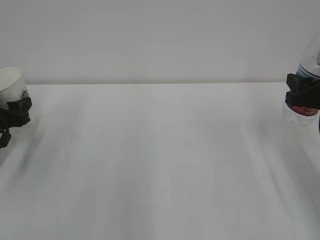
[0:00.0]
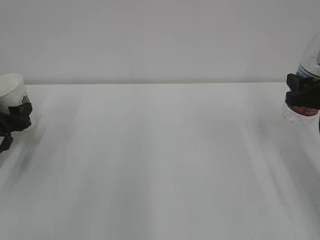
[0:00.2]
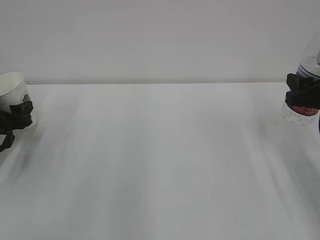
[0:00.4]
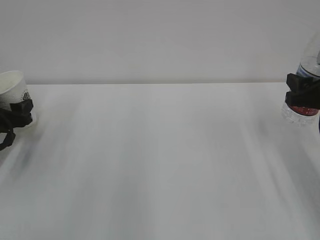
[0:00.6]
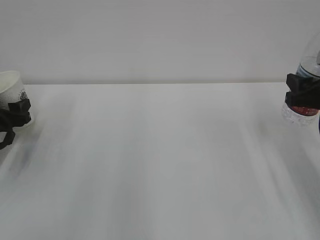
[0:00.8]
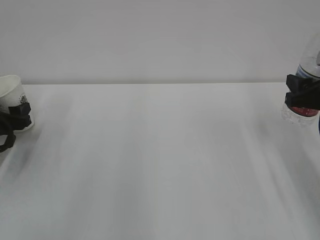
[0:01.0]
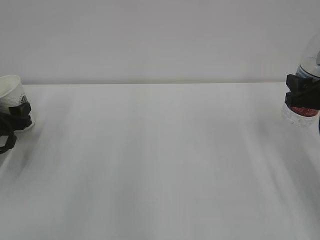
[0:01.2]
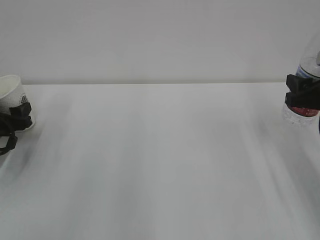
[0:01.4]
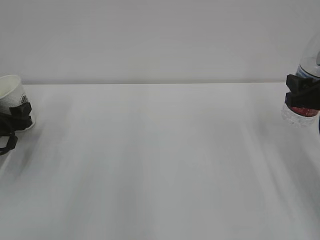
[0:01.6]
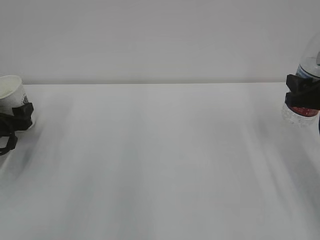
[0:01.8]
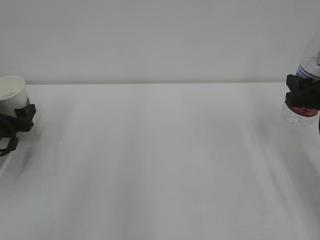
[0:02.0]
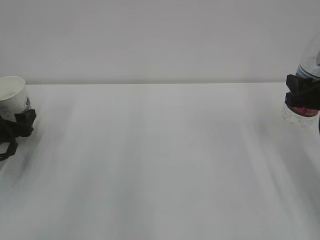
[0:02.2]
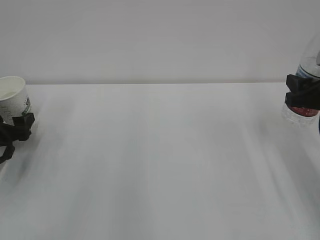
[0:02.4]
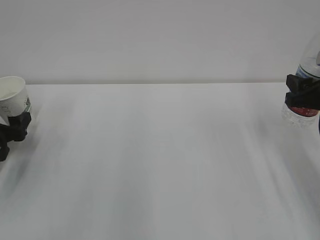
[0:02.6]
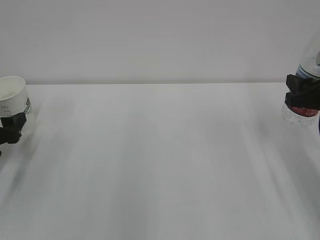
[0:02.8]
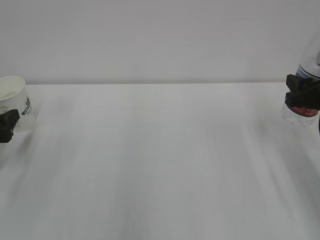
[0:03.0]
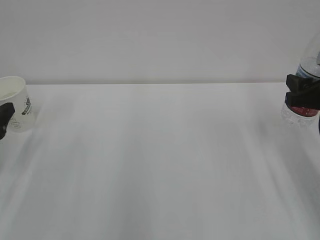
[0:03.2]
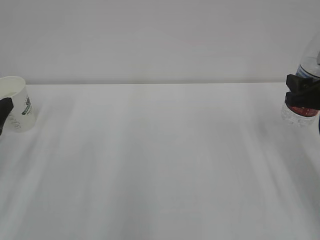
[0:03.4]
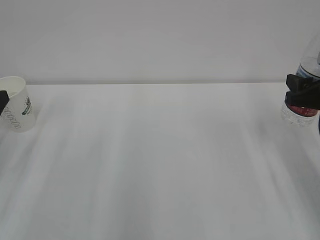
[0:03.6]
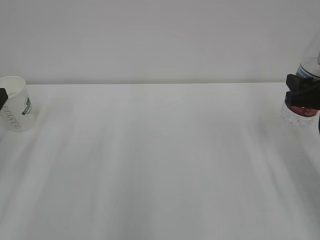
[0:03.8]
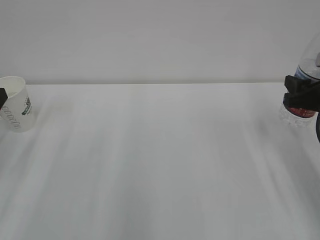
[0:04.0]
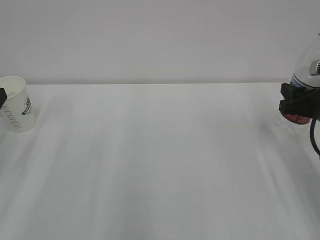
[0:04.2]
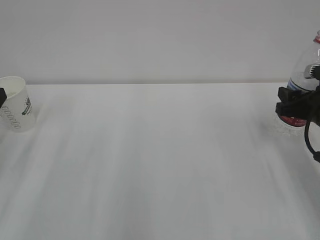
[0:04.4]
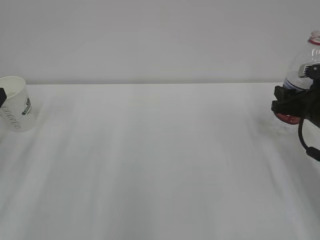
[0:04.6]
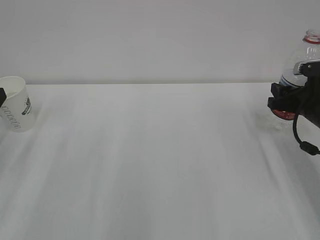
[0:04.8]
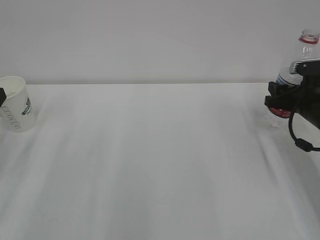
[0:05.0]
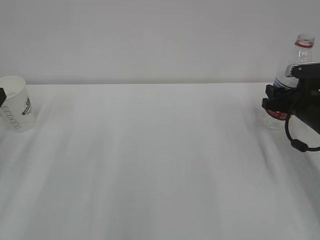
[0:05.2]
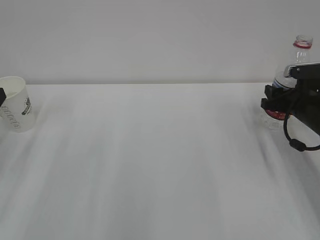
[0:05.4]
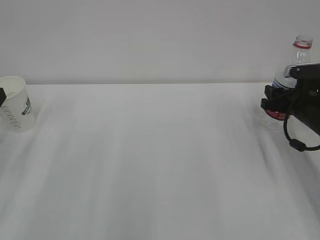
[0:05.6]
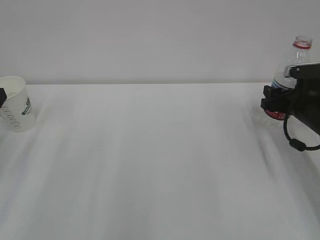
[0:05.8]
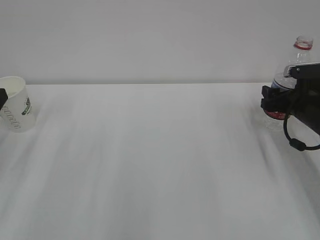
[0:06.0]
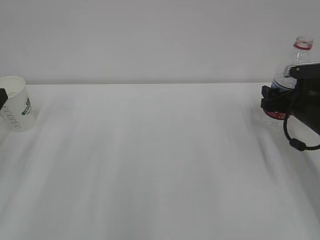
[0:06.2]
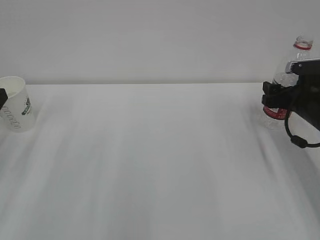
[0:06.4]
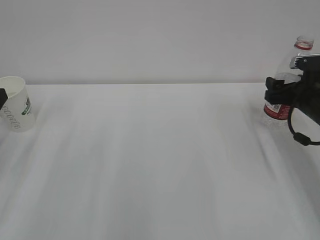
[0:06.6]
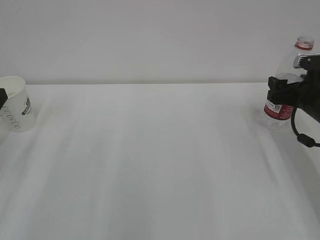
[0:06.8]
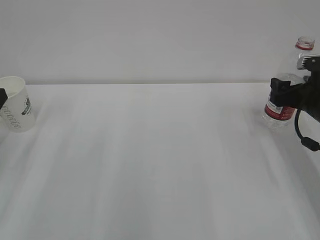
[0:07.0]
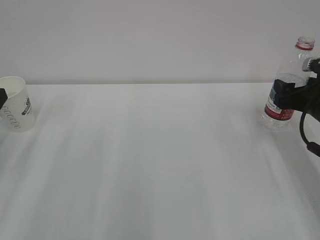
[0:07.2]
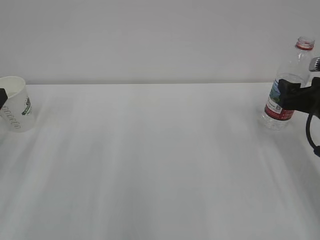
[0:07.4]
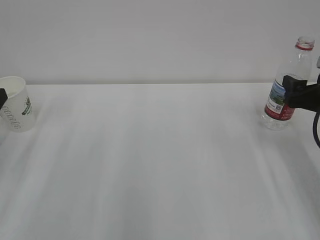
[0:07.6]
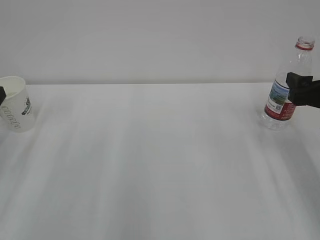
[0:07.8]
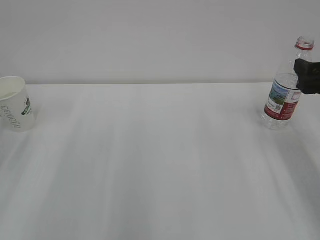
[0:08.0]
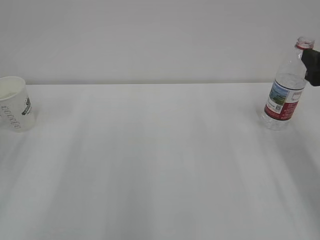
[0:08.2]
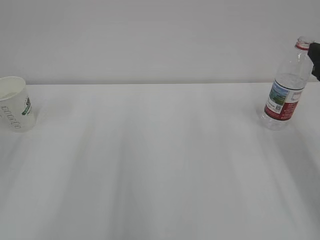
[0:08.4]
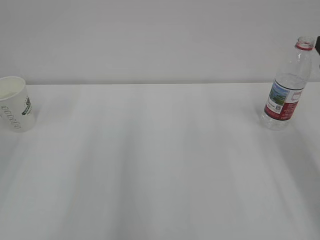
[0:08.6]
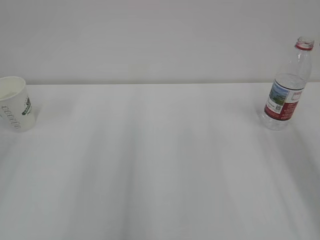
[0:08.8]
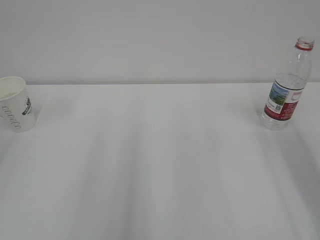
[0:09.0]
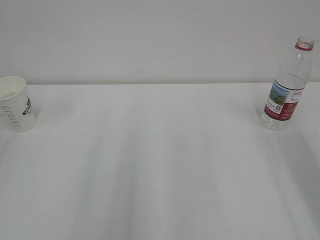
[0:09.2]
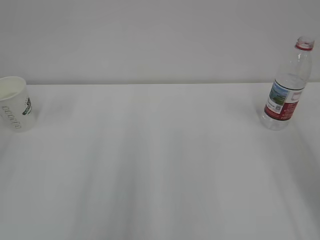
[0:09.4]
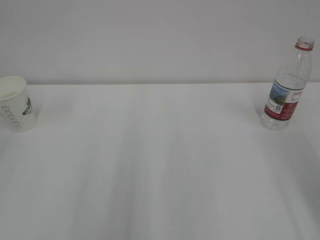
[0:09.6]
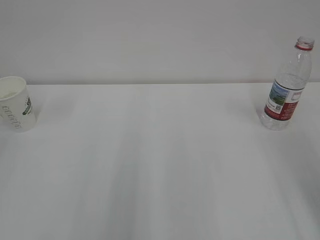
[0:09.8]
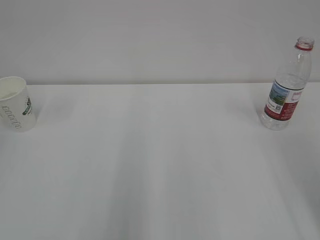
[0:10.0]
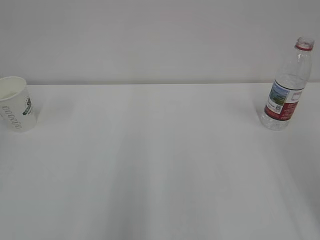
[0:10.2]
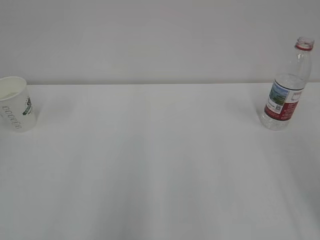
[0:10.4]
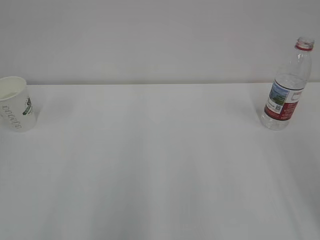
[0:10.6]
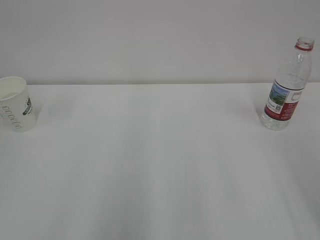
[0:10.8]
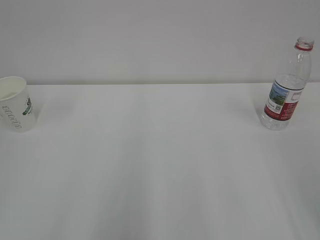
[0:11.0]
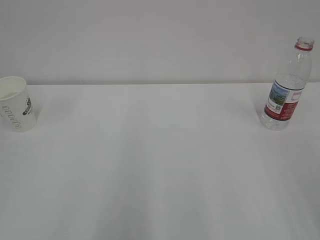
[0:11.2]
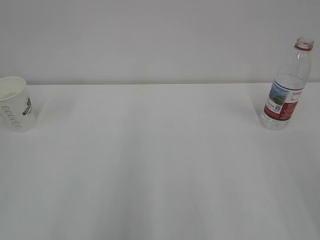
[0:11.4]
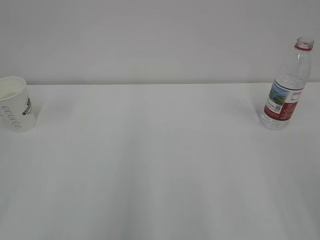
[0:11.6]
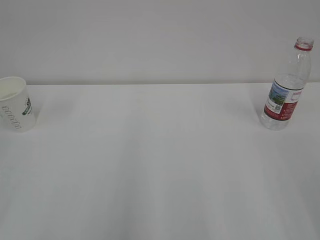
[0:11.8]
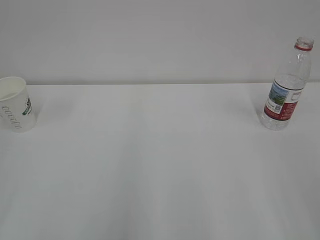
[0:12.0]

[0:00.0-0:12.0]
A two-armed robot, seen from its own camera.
0:00.0 to 0:01.6: The grippers stay close to where they were, moving slightly.
0:01.6 to 0:03.0: The left gripper goes about 10 cm backward, and opens up.
0:03.0 to 0:04.4: The left gripper moves upward, roughly 5 cm.
0:04.4 to 0:06.0: The right gripper heads forward, covering some 5 cm, and opens up.
0:06.0 to 0:07.6: The right gripper moves backward and upward, about 10 cm.
0:07.6 to 0:09.0: The right gripper is displaced upward and backward by approximately 15 cm.

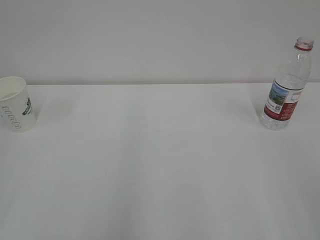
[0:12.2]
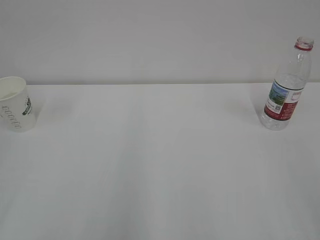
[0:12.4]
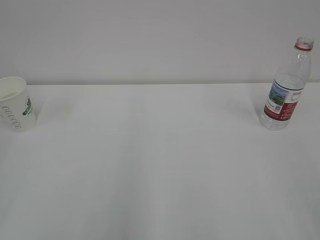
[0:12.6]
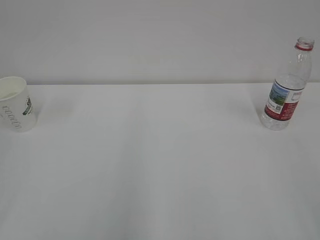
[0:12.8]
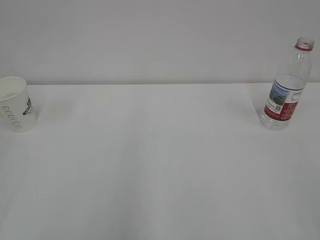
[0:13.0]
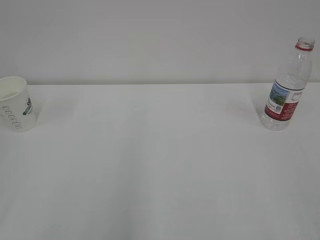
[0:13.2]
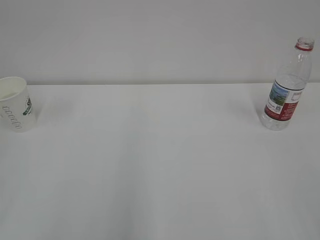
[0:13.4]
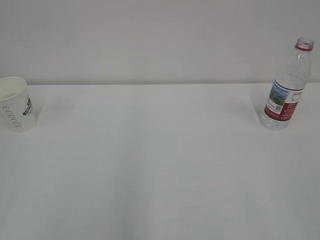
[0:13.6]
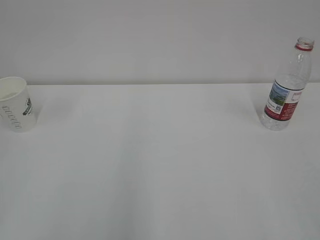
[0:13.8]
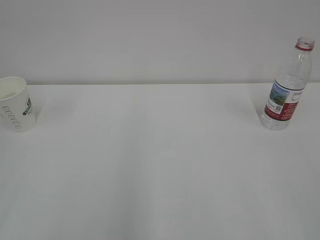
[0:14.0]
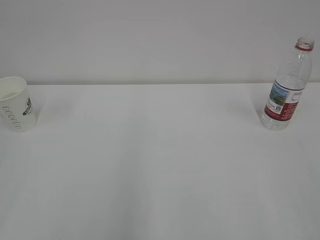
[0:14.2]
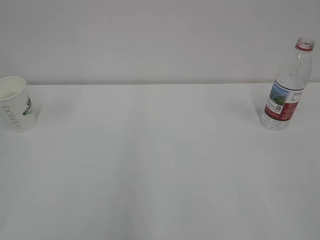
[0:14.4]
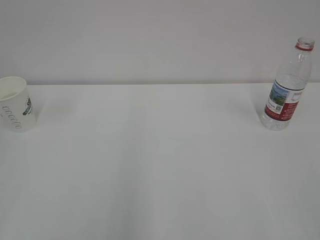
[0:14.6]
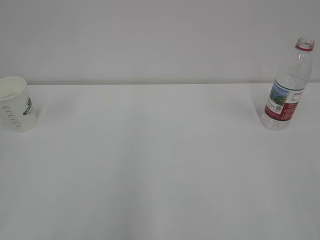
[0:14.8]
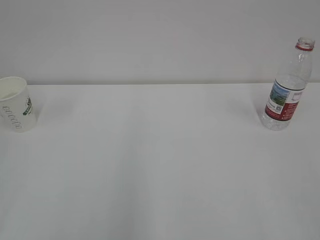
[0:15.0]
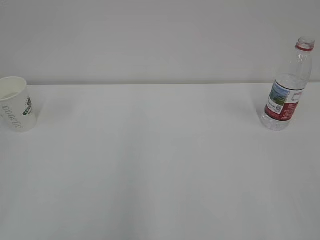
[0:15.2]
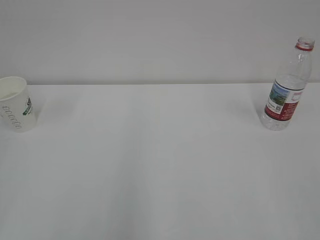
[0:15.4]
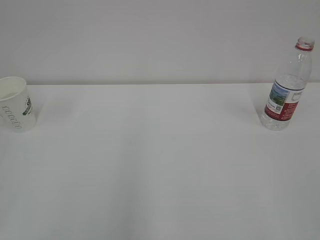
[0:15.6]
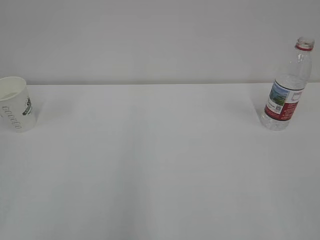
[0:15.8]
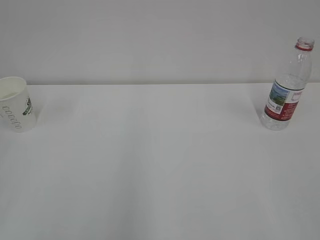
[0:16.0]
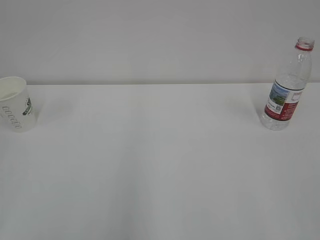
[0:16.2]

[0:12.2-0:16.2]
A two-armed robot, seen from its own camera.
0:13.6 to 0:16.2: Both grippers stay about where they are.

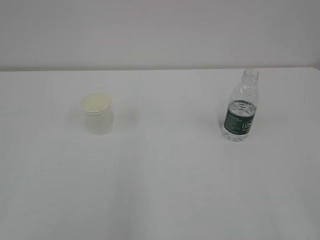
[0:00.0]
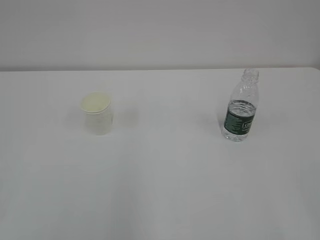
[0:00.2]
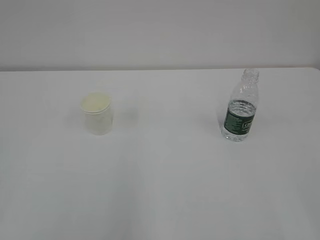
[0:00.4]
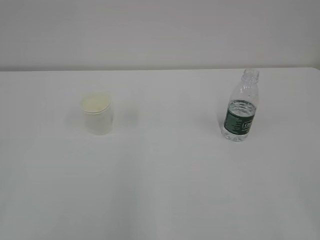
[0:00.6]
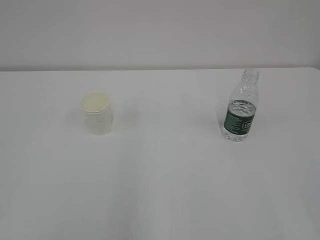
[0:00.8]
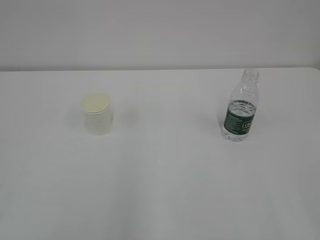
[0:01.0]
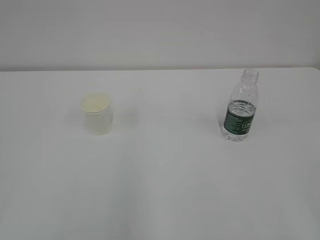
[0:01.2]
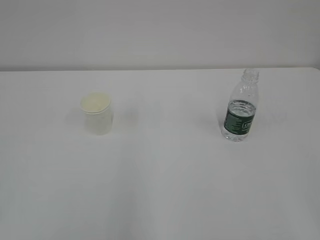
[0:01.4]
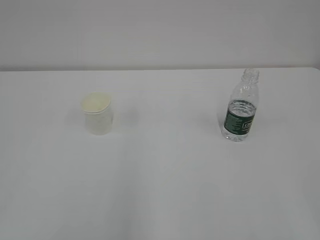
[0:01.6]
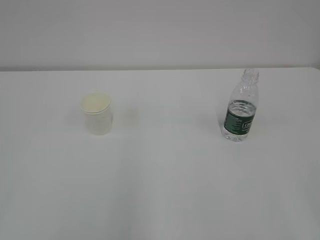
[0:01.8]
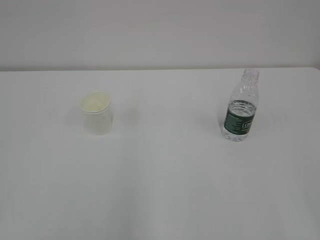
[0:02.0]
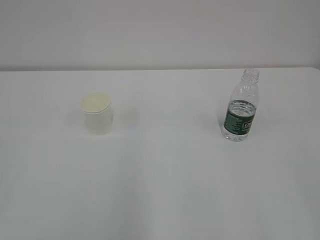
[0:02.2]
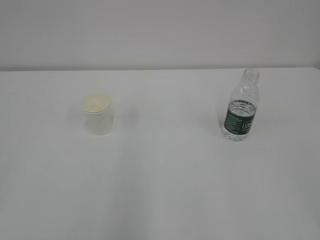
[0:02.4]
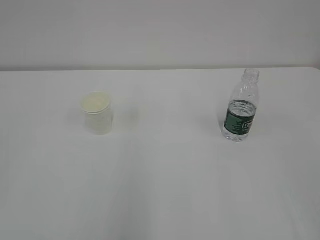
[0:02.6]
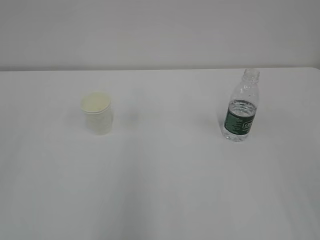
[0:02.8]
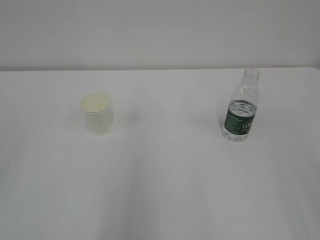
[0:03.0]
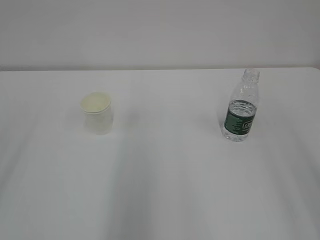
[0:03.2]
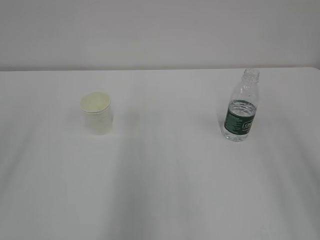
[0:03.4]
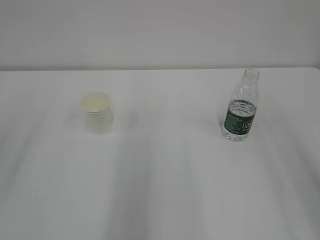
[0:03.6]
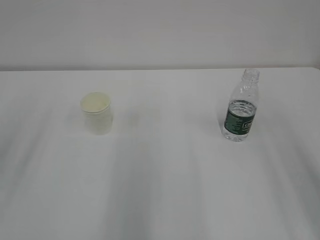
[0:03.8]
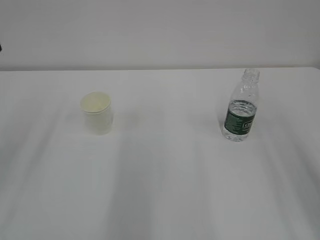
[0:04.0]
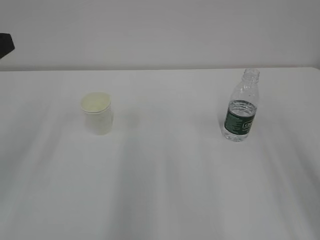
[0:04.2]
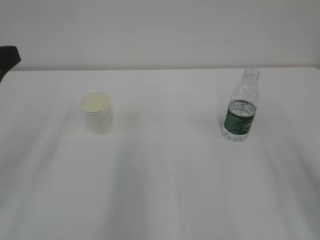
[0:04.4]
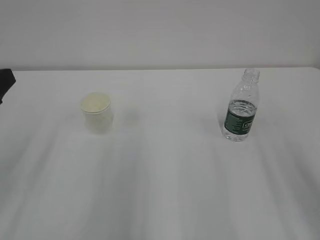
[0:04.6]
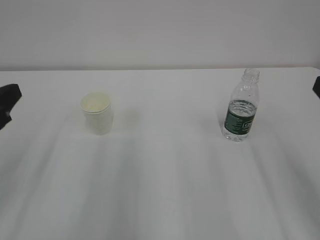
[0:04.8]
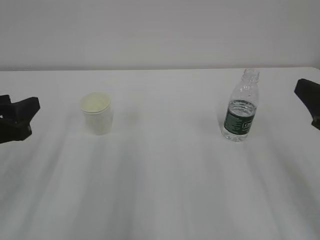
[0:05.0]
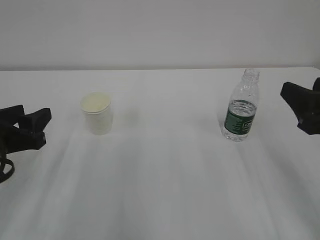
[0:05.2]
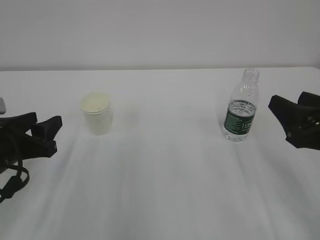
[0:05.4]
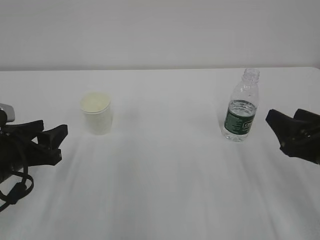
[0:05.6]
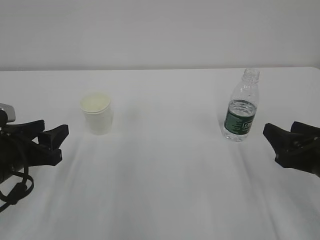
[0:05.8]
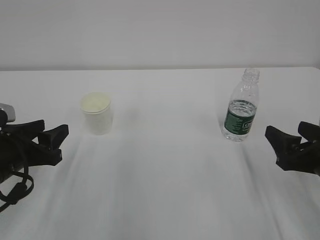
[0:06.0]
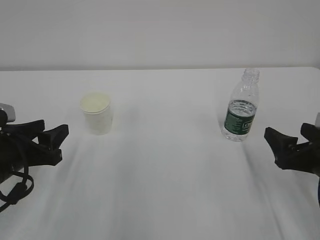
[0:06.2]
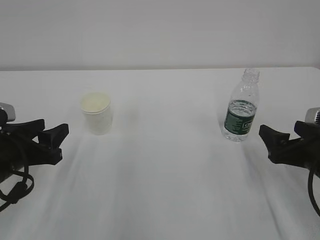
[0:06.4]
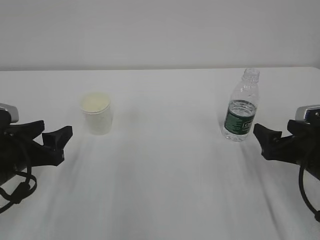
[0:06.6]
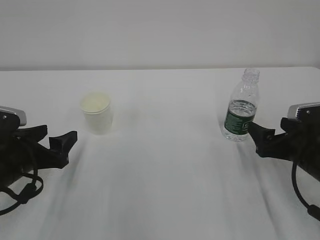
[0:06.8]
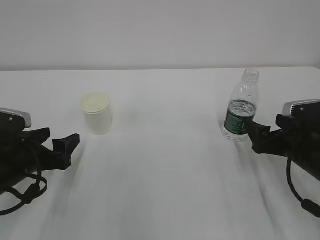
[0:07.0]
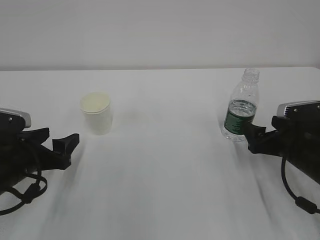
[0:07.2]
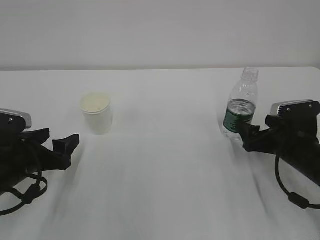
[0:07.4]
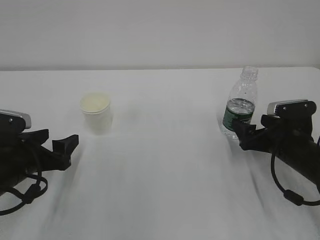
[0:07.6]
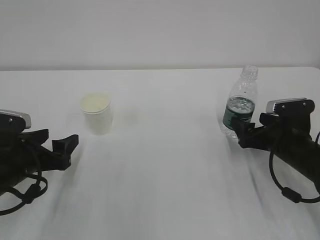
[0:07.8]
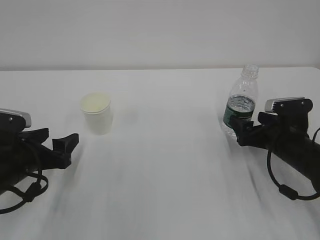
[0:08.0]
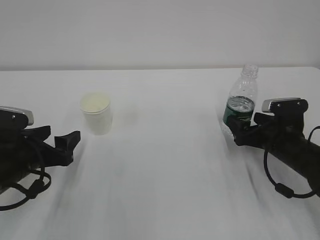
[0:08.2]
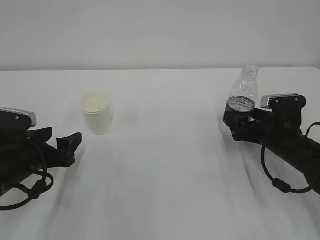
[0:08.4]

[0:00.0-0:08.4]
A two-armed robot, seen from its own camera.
0:04.2 to 0:05.6: The right gripper travels downward and forward by approximately 15 cm, while the left gripper heads downward, covering some 20 cm.
0:05.6 to 0:07.0: The left gripper opens its fingers, while the right gripper moves forward and downward, roughly 10 cm, and opens its fingers.
0:07.0 to 0:08.4: The right gripper goes about 5 cm forward.
